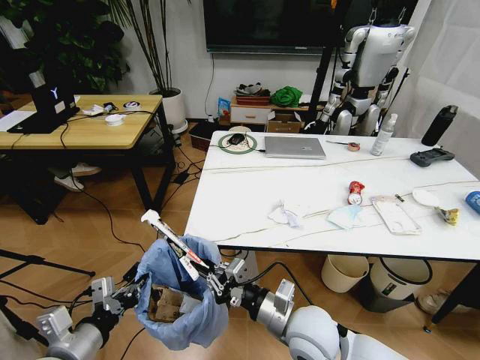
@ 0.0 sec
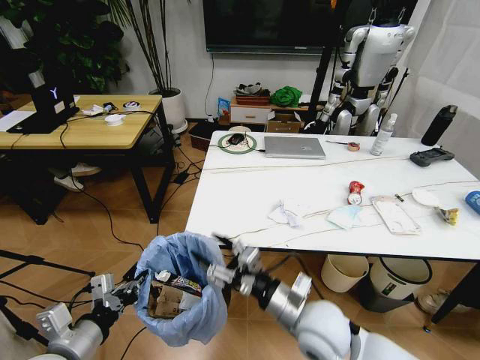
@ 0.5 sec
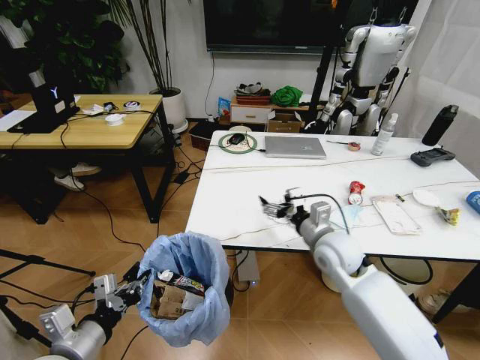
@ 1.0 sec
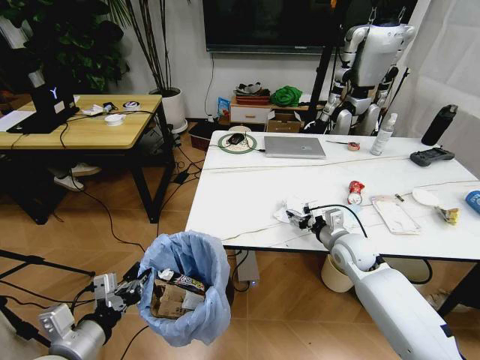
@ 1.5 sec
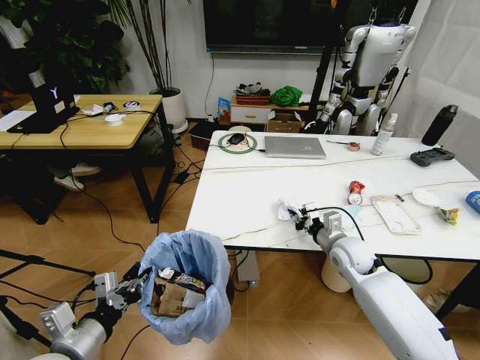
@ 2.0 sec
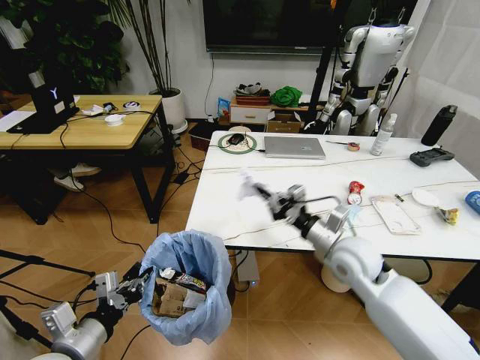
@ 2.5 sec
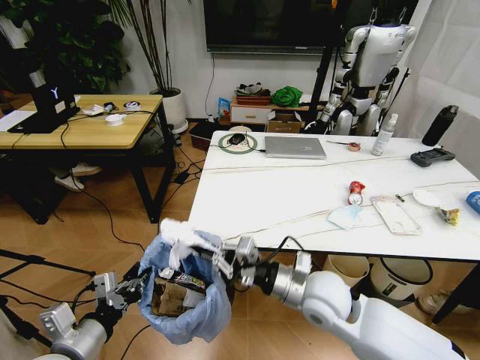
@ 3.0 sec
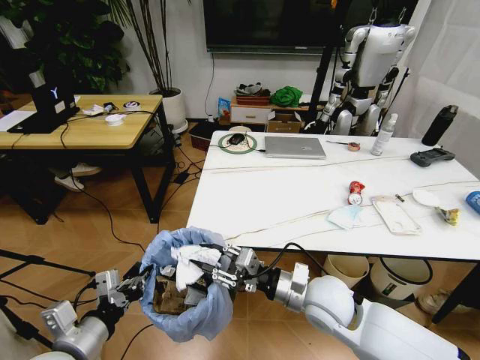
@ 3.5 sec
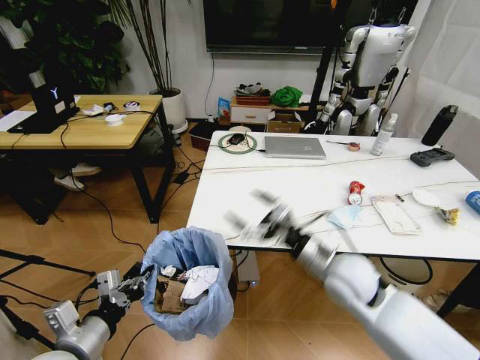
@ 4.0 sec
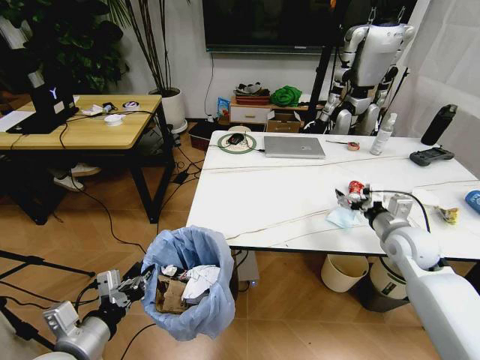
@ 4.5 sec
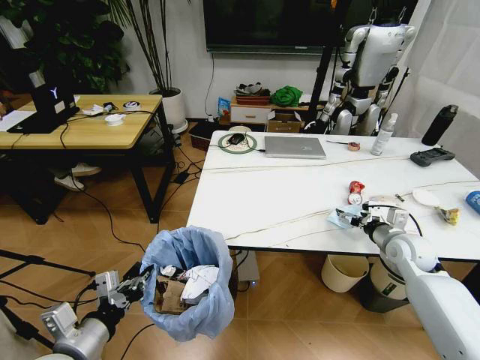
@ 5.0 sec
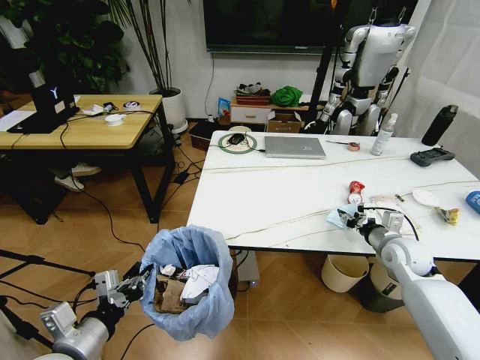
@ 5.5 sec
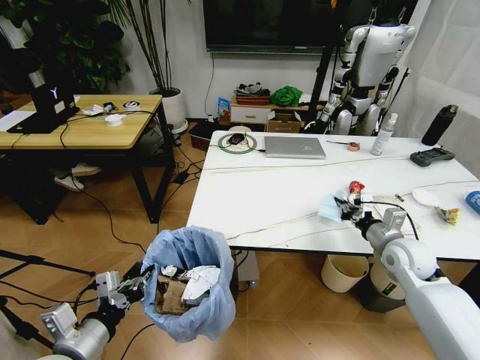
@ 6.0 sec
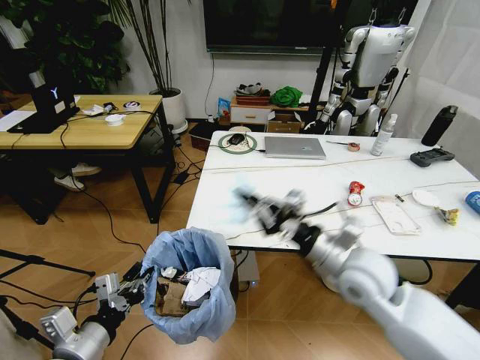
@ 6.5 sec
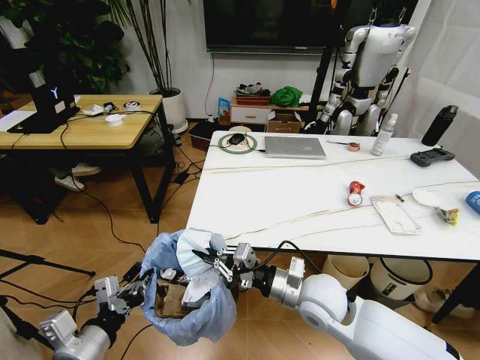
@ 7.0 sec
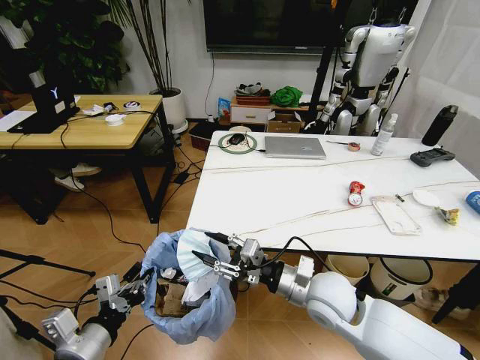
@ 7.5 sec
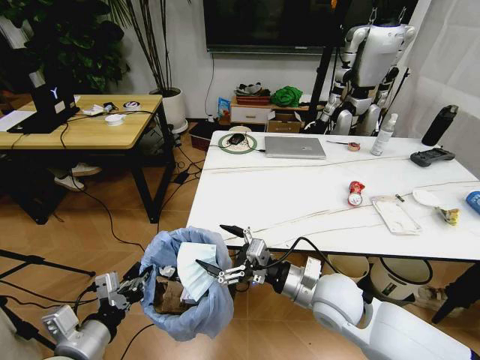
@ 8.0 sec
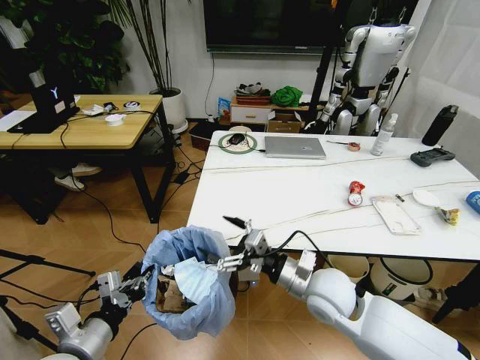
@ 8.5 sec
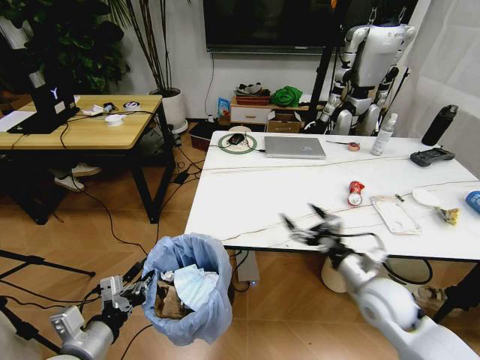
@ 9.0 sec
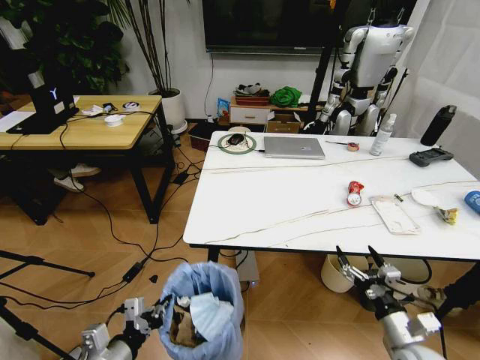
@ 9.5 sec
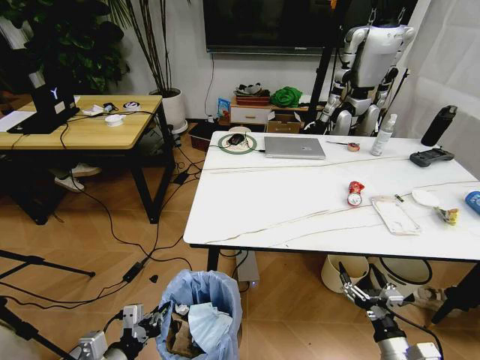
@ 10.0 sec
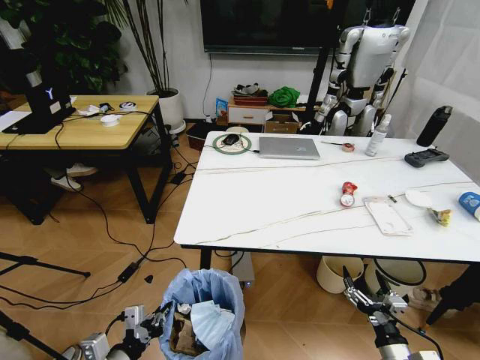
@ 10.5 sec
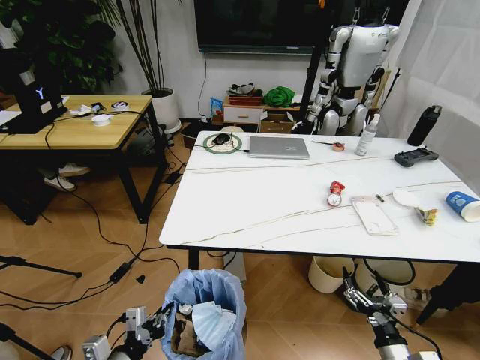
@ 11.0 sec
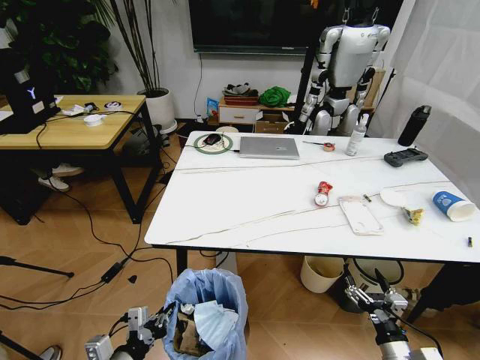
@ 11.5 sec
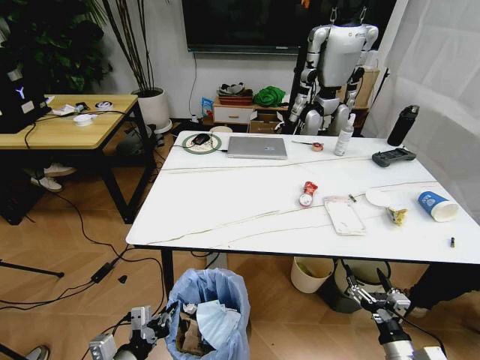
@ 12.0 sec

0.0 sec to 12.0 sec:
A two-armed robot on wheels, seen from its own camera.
Task of the whole recording: Pick up the trash bin and place the trash from the table into it.
0.0 sec to 2.0 sec: The right gripper heads forward and to the right, covering roughly 25 cm, and opens, then closes once more.
2.0 sec to 4.0 sec: The right gripper goes about 15 cm backward, to the left and upward, and opens its fingers.
4.0 sec to 6.0 sec: The right gripper is displaced to the right by some 15 cm, and closes its fingers.
6.0 sec to 8.0 sec: The right gripper goes roughly 20 cm to the left and backward, and opens.
8.0 sec to 10.0 sec: The right gripper shifts roughly 25 cm to the right, downward and backward; the left gripper is displaced downward by approximately 10 cm.

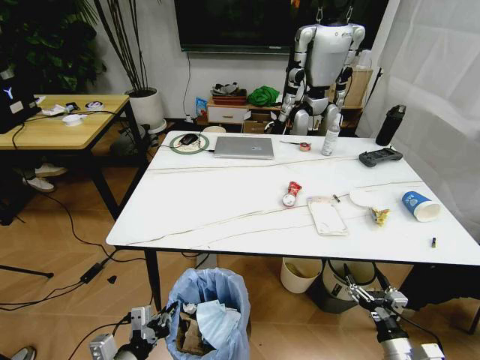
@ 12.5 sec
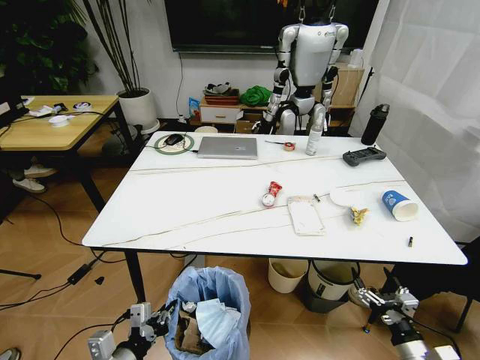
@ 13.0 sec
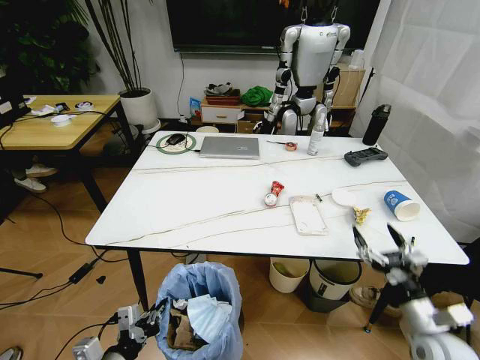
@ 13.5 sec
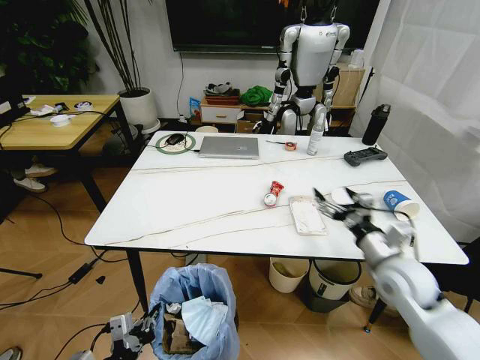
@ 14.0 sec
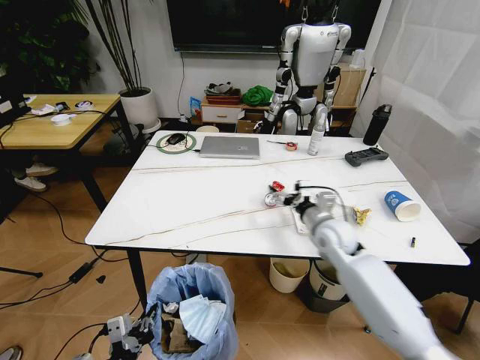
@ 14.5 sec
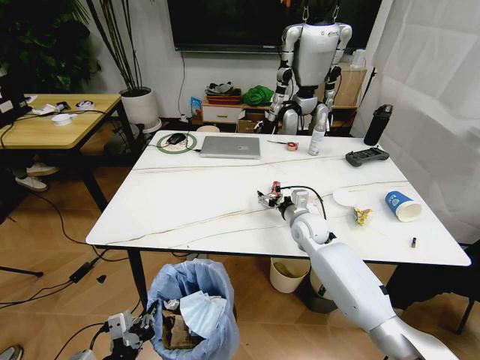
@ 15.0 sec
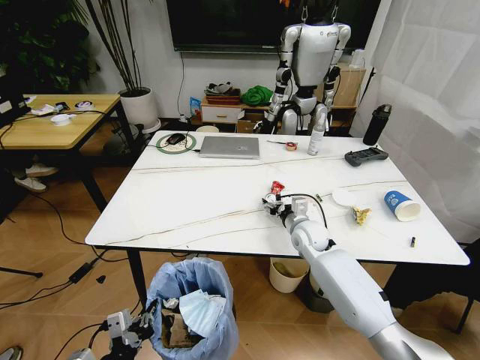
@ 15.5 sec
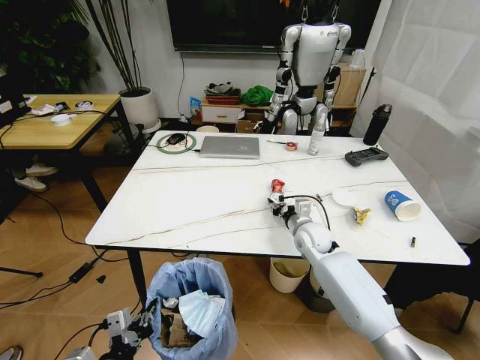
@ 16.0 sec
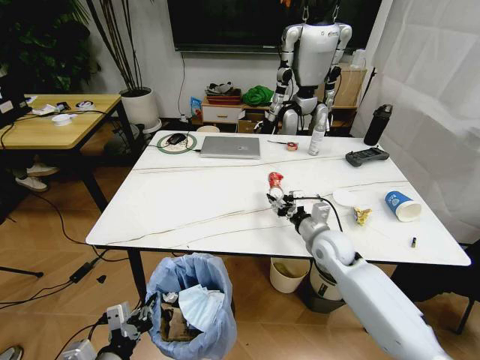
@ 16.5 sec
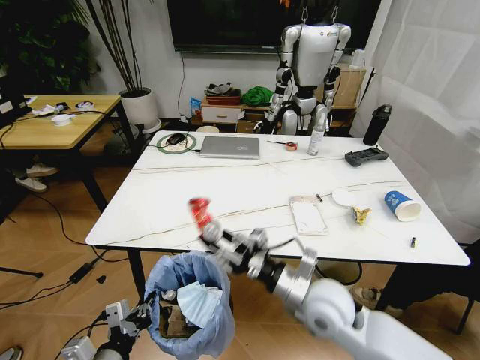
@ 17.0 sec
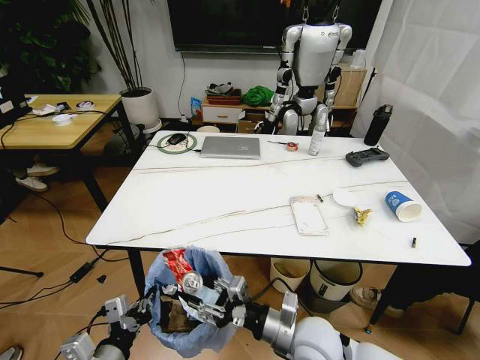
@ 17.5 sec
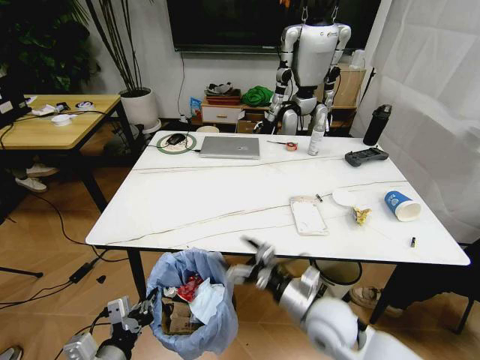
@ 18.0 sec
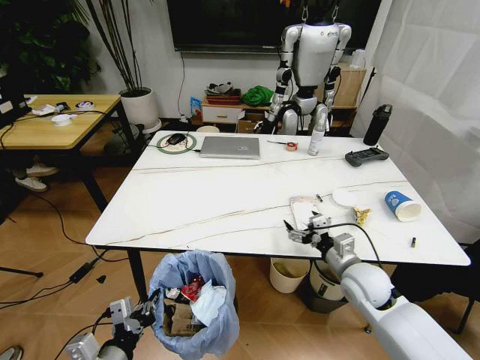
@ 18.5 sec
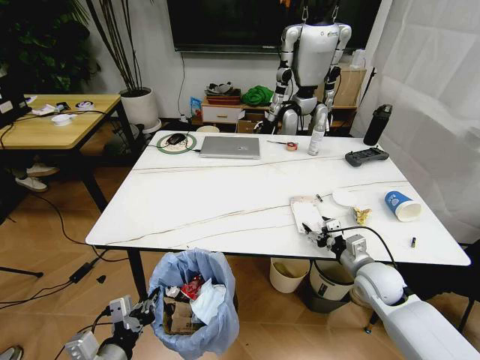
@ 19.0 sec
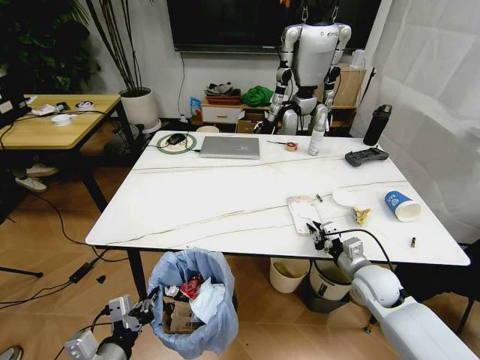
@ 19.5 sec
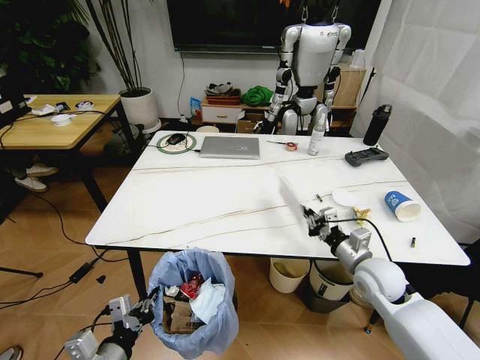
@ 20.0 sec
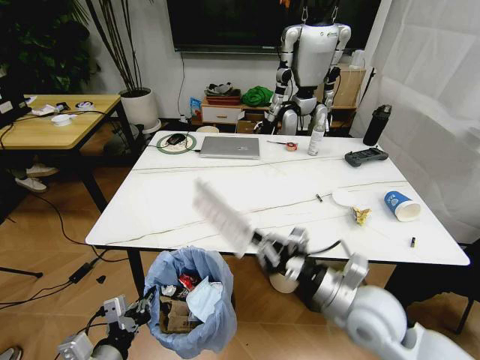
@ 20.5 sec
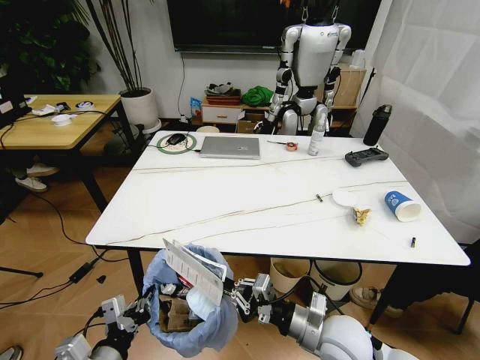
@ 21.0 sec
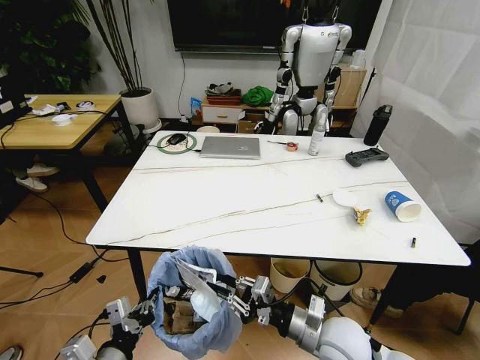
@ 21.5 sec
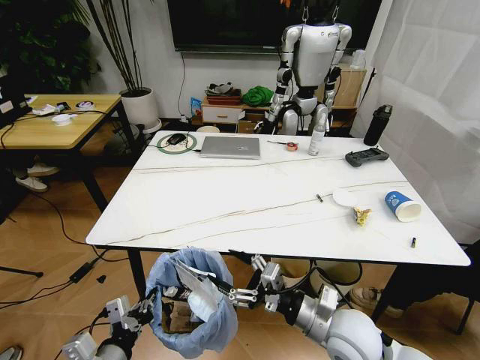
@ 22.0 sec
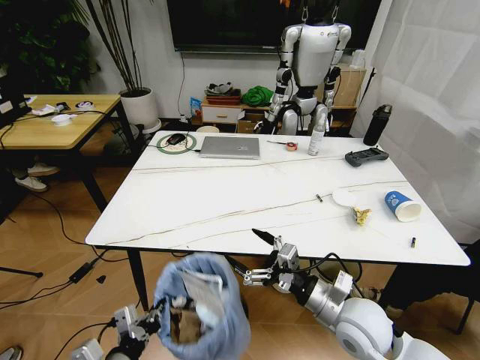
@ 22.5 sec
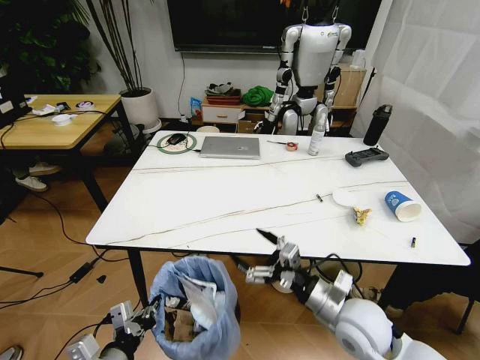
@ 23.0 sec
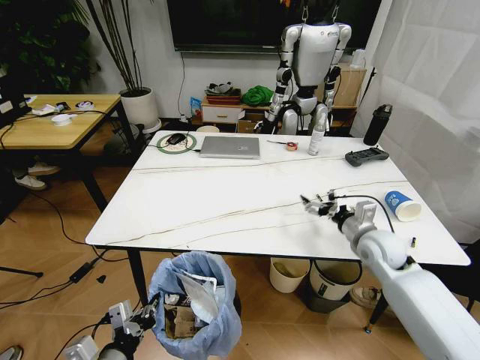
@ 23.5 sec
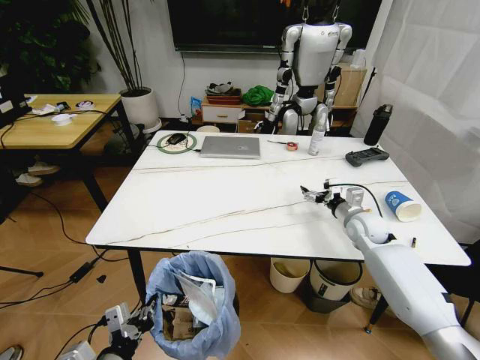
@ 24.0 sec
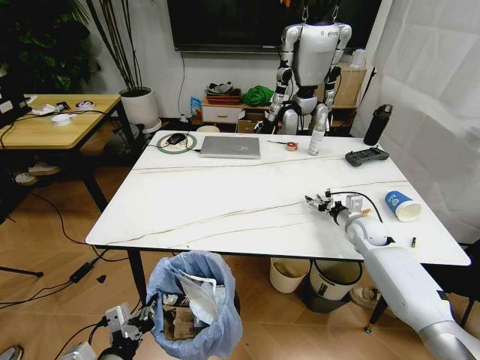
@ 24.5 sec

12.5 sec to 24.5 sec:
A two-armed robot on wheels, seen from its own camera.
Task of the whole recording: Pick up the trash bin and place the trash from the table into it.
12.5 sec to 14.5 sec: The right gripper goes approximately 35 cm forward, upward and to the left.
14.5 sec to 16.5 sec: The right gripper closes.
16.5 sec to 18.5 sec: The right gripper goes roughly 10 cm backward, and opens up.
18.5 sec to 20.5 sec: The right gripper moves backward, upward and to the left, approximately 15 cm, and closes up.
20.5 sec to 22.5 sec: The right gripper opens.
22.5 sec to 24.5 sec: The right gripper travels forward and to the right by some 30 cm.

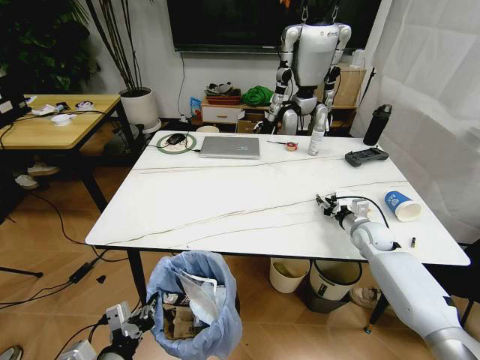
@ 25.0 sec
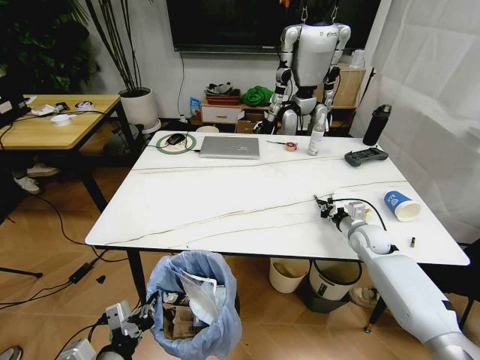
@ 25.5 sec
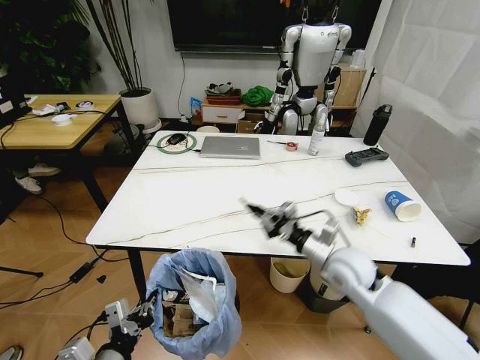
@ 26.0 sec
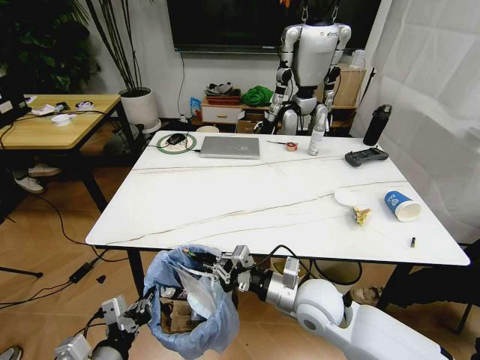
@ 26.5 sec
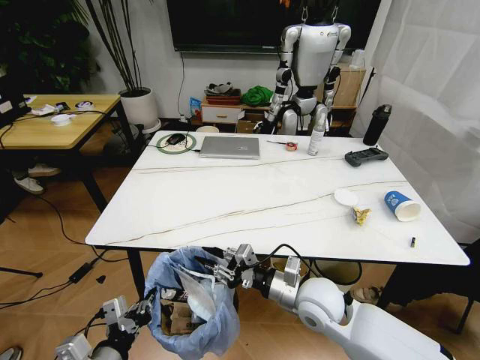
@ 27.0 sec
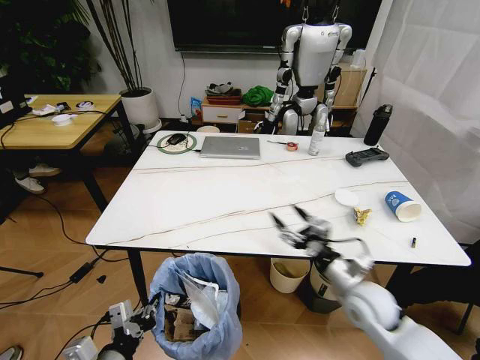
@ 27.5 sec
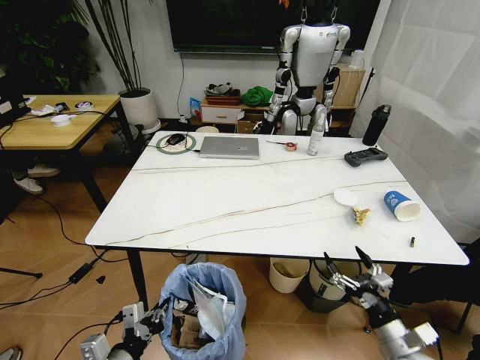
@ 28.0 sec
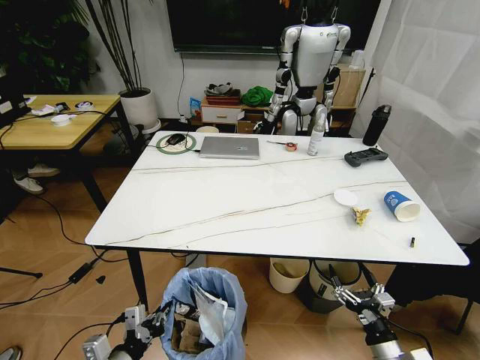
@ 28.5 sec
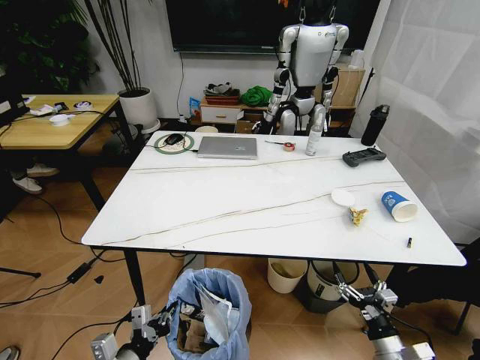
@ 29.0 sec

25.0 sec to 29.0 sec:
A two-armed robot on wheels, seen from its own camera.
Task of the whole recording: Pick up the trash bin and place the trash from the table into it.
25.0 sec to 27.0 sec: The right gripper heads to the left and backward, covering about 30 cm.
27.0 sec to 29.0 sec: The left gripper goes roughly 5 cm downward. The right gripper shifts some 25 cm to the right, backward and downward, and opens its fingers.
